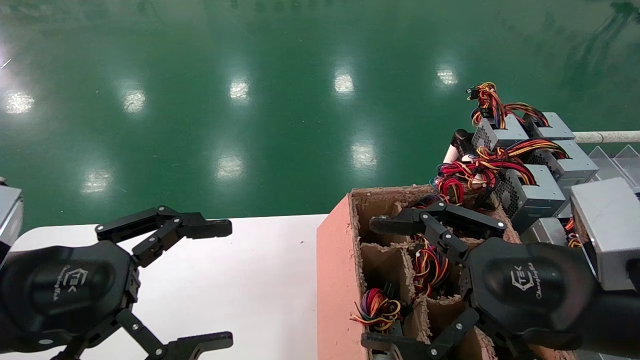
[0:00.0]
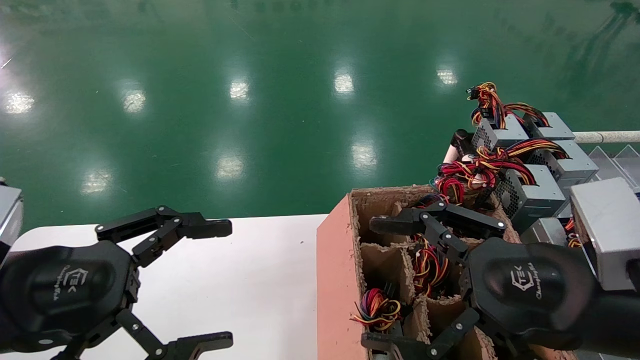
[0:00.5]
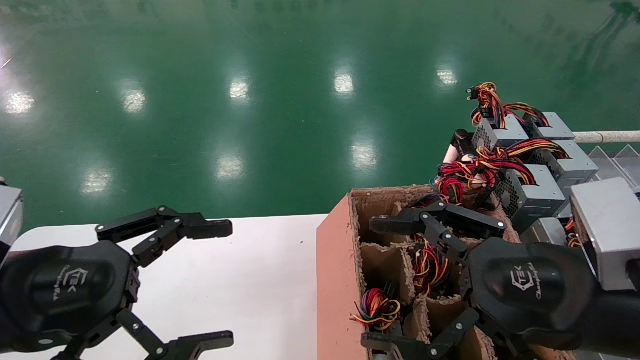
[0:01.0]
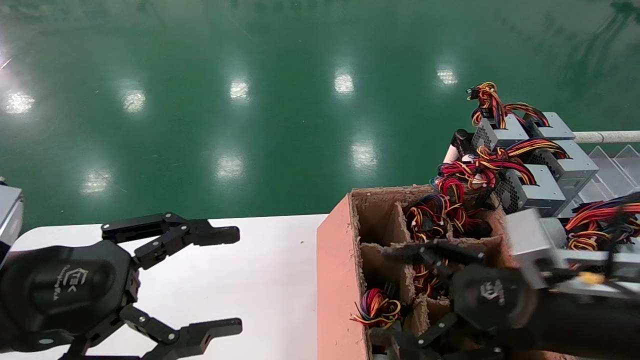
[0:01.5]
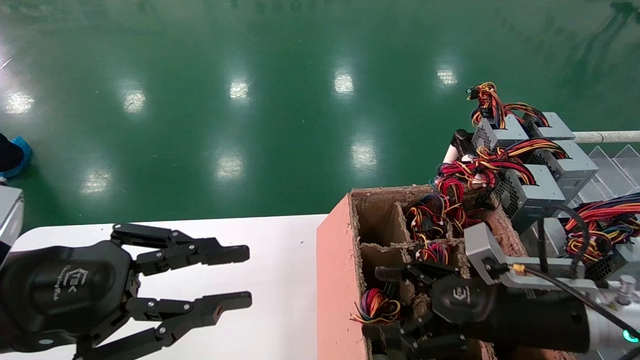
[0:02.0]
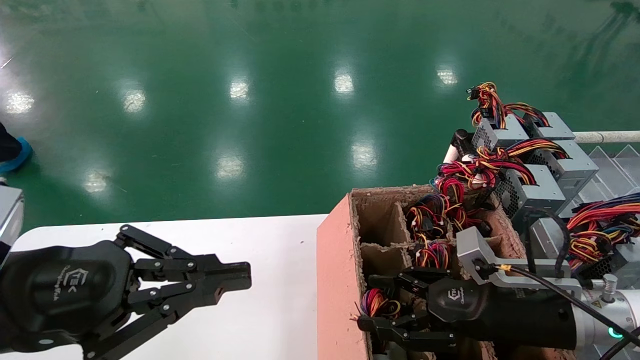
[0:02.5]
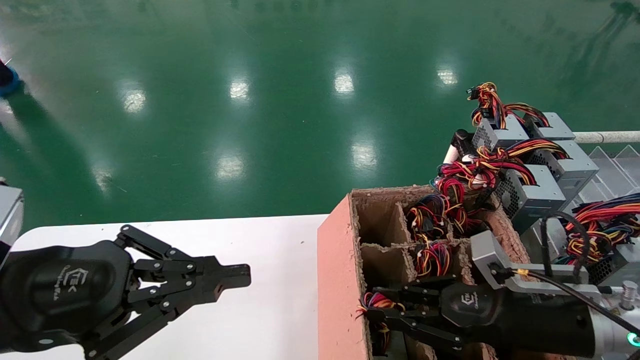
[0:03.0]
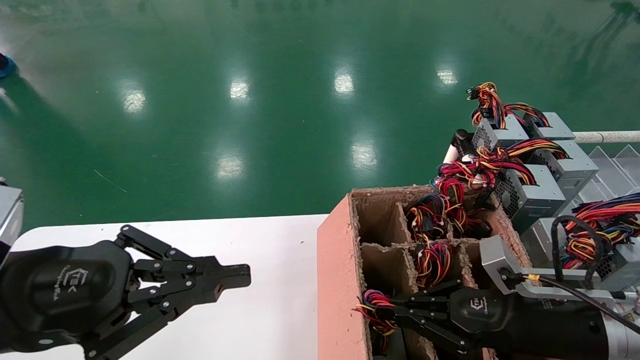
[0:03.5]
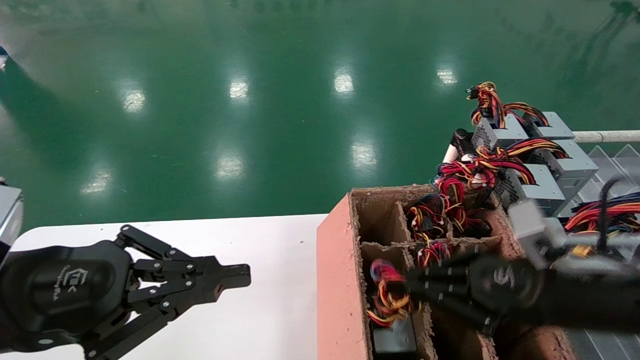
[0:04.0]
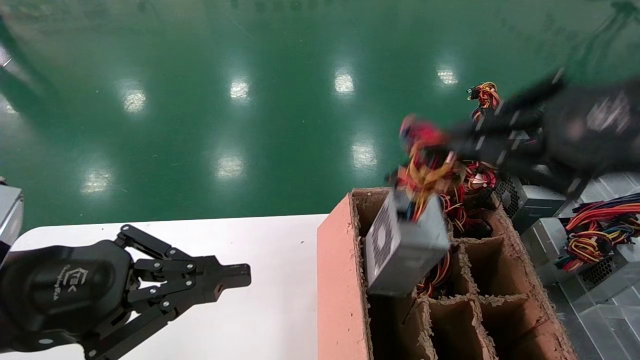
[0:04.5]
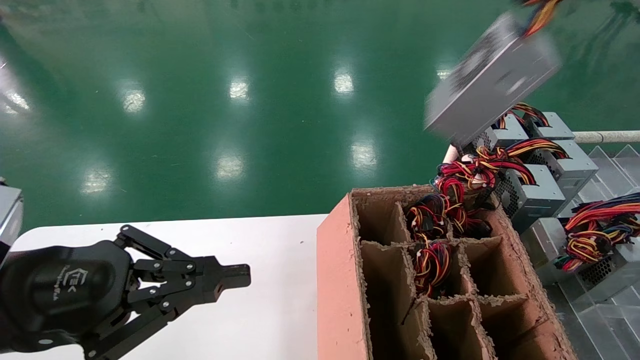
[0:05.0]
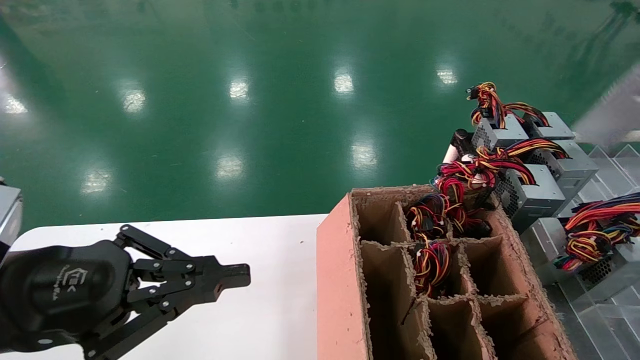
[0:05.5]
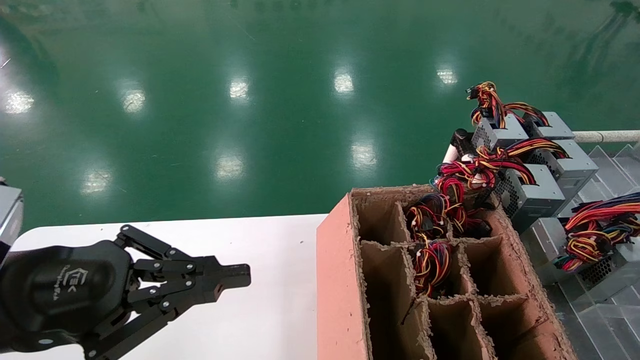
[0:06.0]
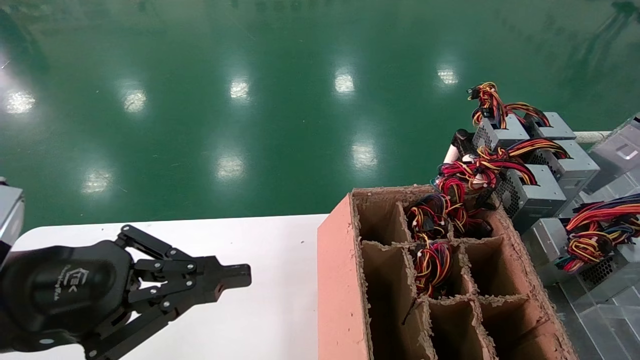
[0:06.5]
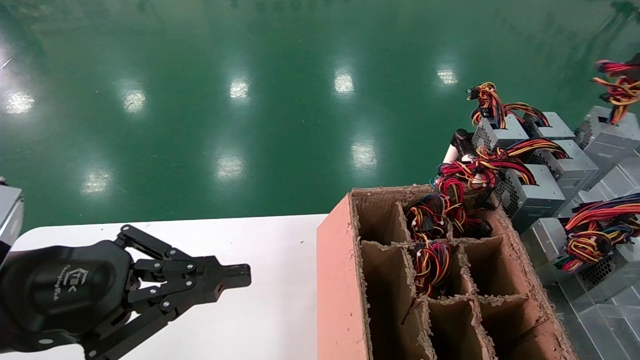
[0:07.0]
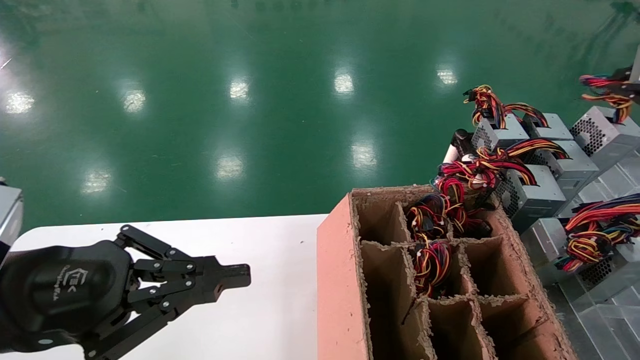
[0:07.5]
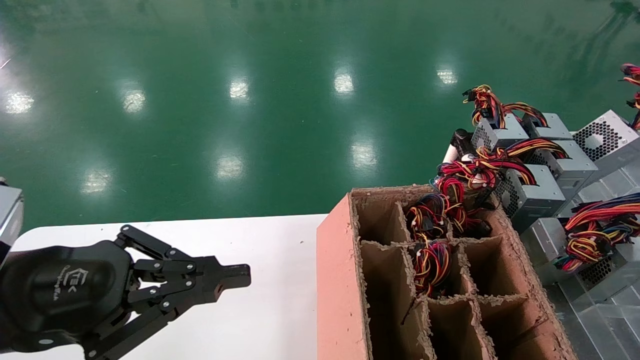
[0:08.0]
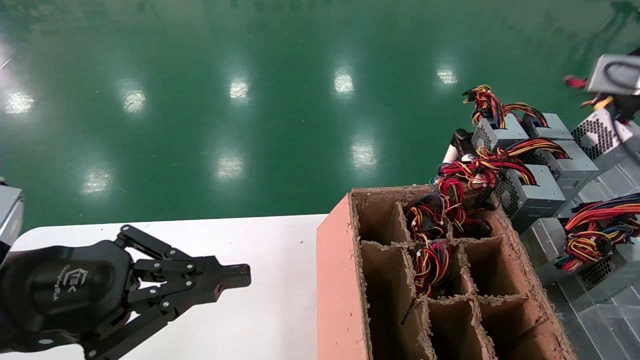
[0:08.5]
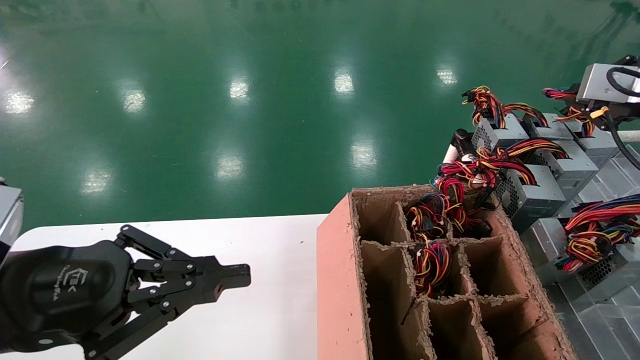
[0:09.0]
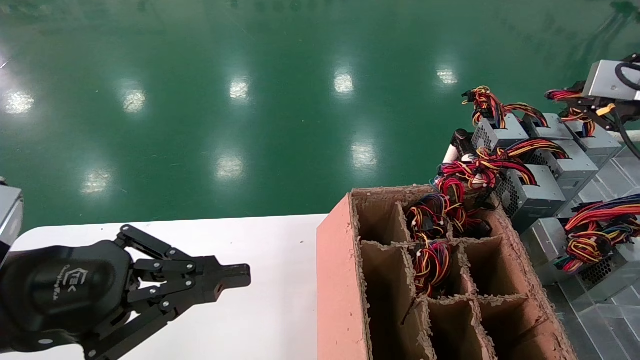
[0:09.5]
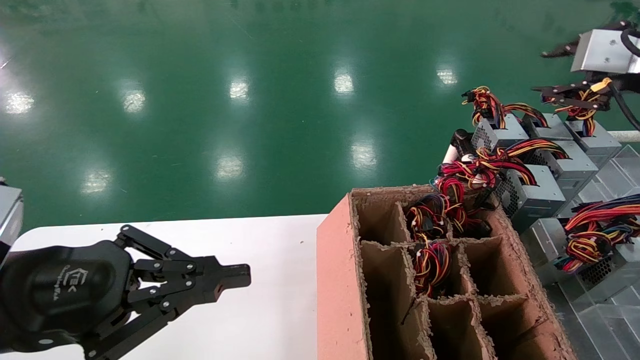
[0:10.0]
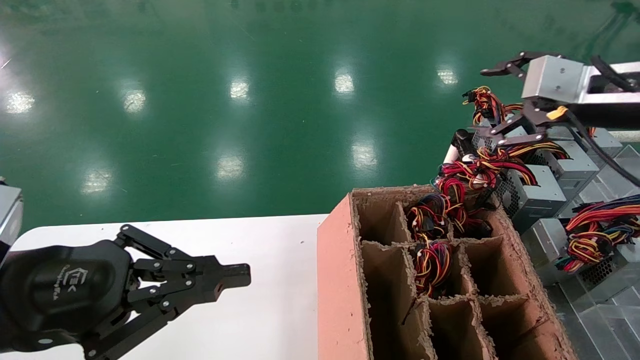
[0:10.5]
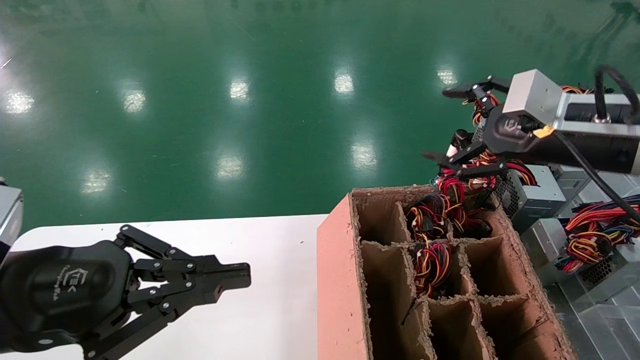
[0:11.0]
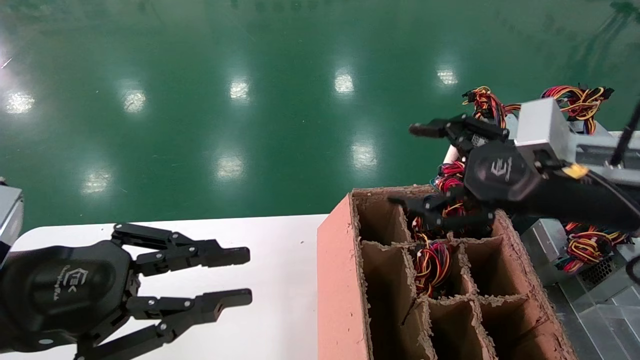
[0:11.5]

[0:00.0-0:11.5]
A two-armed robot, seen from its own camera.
Step, 0:01.5 to 0:03.5: Grab the main unit power supply from the containment box.
Step, 0:04.0 to 0:09.5: Place the main unit power supply in the designated area.
0:00.0 to 0:02.0: The right gripper moves forward and downward, about 15 cm; the left gripper closes.
0:02.0 to 0:04.0: The right gripper travels upward by about 5 cm, and closes its fingers. Meanwhile the left gripper closes its fingers.
0:04.0 to 0:06.0: The right gripper goes about 35 cm upward and to the right.
0:06.0 to 0:07.5: The right gripper goes some 10 cm forward and to the left.
0:07.5 to 0:09.5: The right gripper shifts by roughly 5 cm.
0:09.5 to 0:11.5: The right gripper is displaced to the left, downward and backward by roughly 20 cm, and opens up.

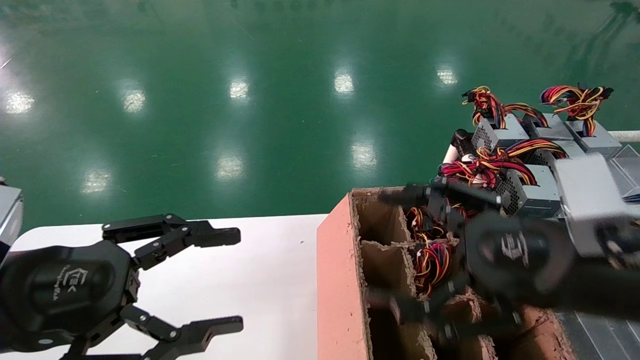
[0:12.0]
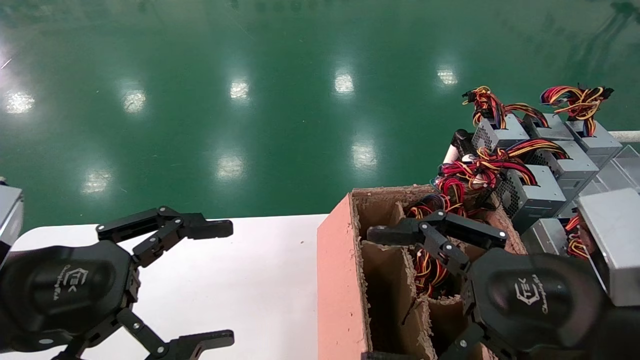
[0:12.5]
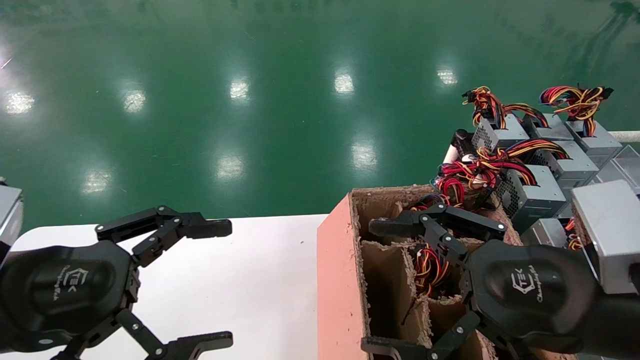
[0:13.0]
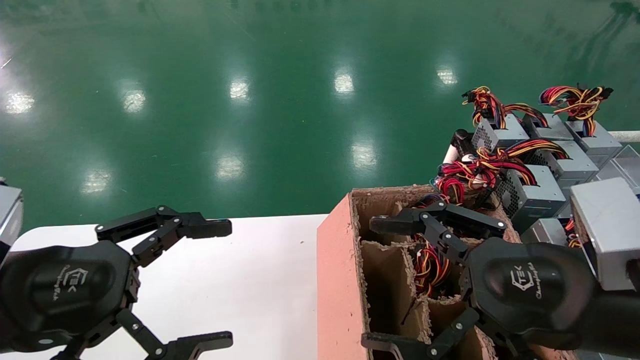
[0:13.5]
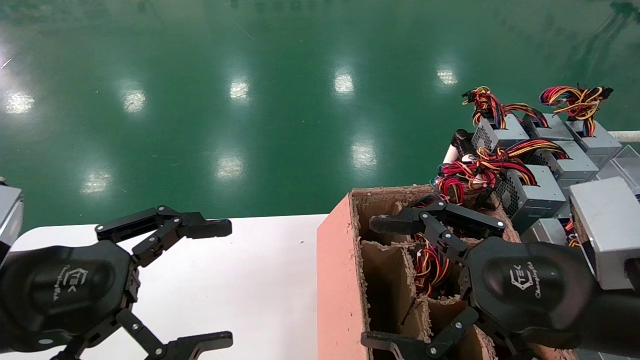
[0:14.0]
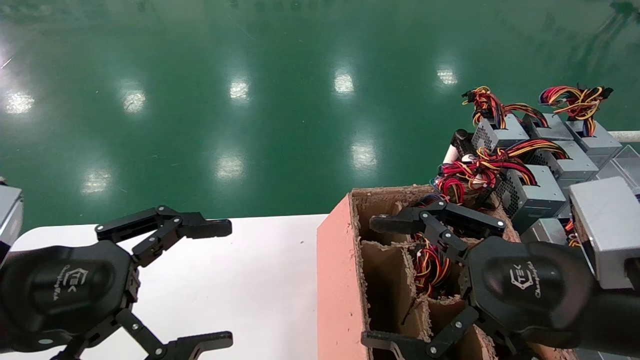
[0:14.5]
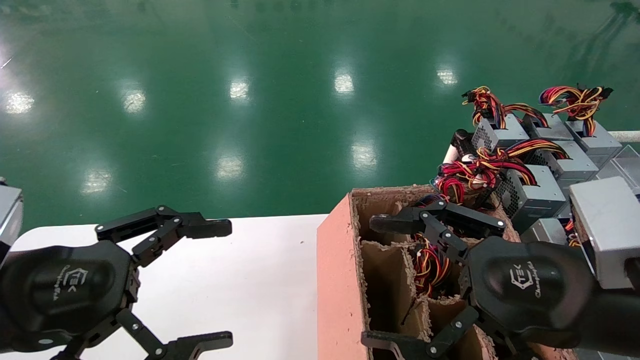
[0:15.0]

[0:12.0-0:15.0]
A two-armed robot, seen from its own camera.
0:12.0 to 0:13.5: The left gripper opens up.
0:13.5 to 0:15.0: The two grippers keep their place.
